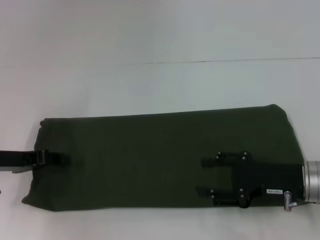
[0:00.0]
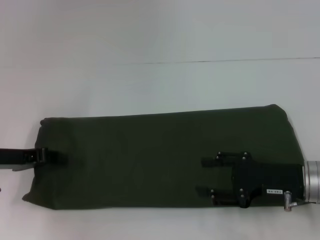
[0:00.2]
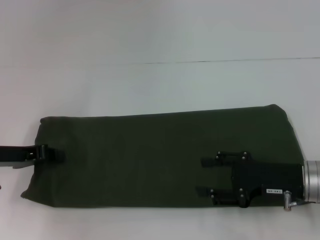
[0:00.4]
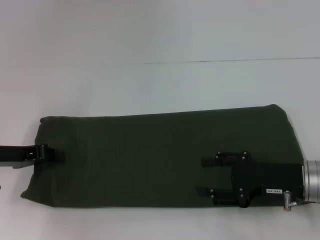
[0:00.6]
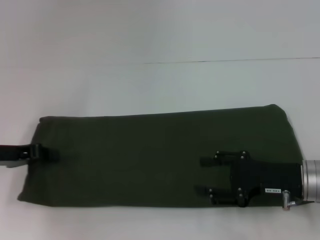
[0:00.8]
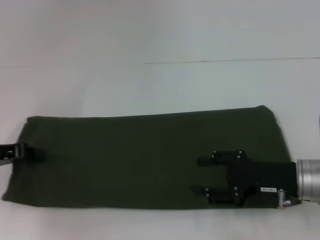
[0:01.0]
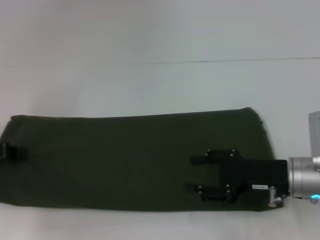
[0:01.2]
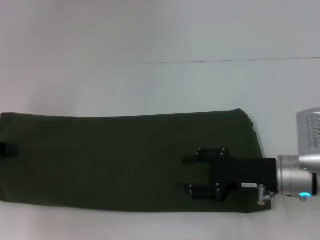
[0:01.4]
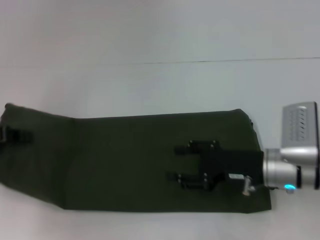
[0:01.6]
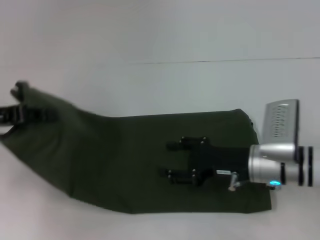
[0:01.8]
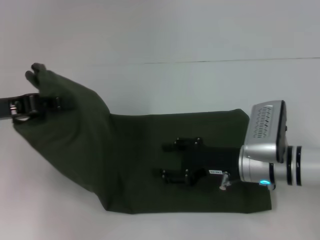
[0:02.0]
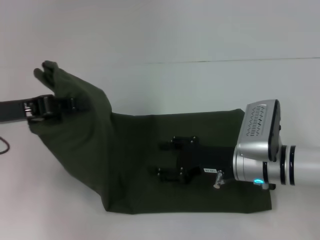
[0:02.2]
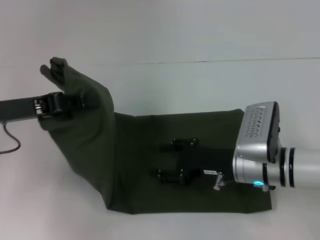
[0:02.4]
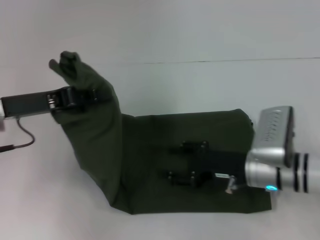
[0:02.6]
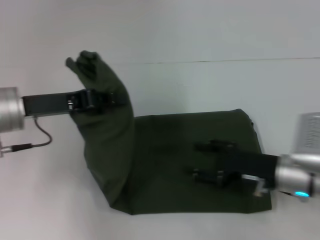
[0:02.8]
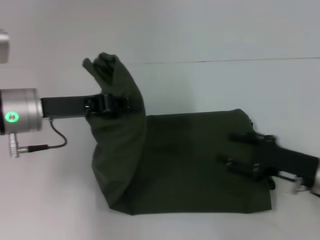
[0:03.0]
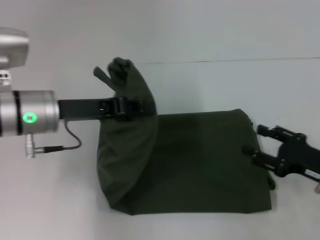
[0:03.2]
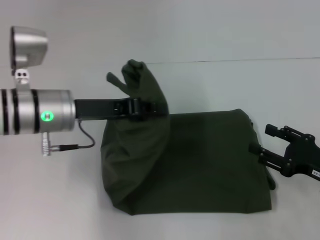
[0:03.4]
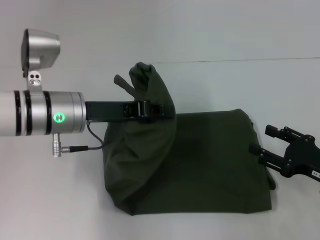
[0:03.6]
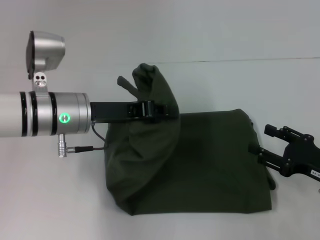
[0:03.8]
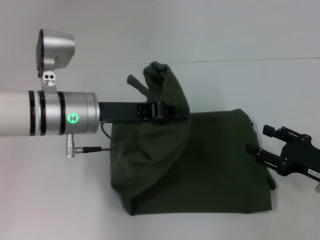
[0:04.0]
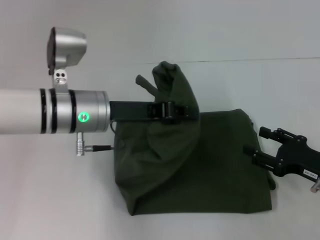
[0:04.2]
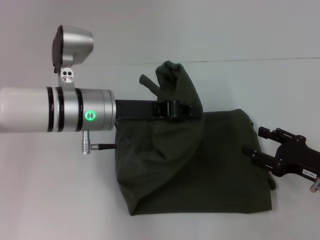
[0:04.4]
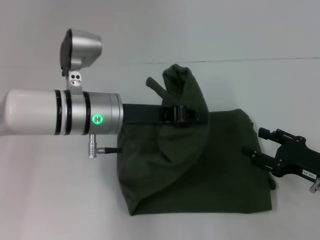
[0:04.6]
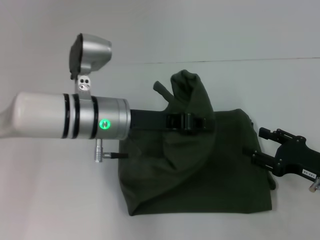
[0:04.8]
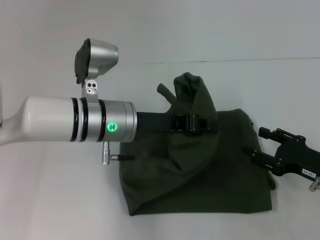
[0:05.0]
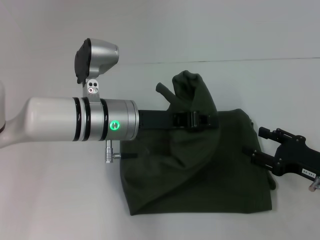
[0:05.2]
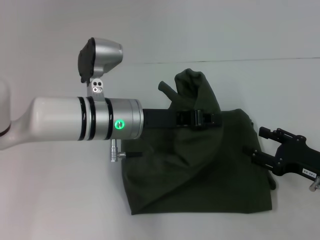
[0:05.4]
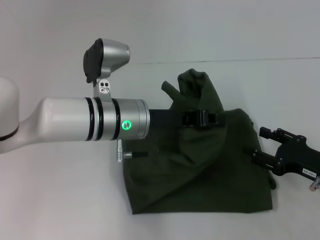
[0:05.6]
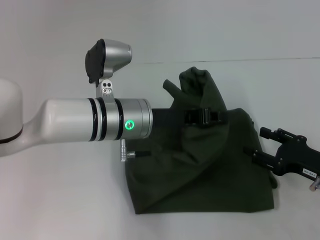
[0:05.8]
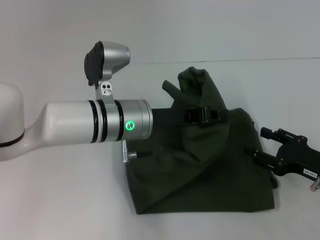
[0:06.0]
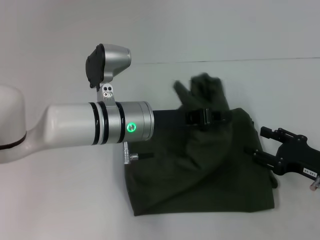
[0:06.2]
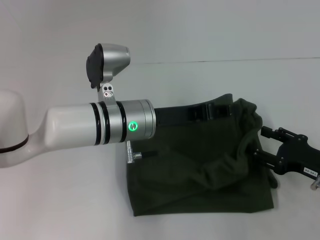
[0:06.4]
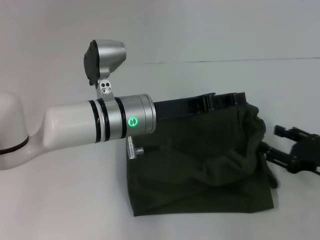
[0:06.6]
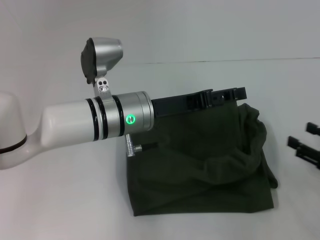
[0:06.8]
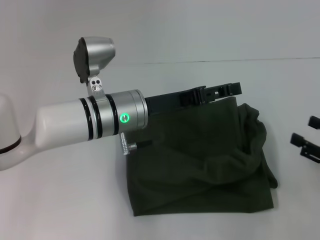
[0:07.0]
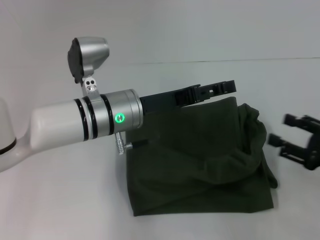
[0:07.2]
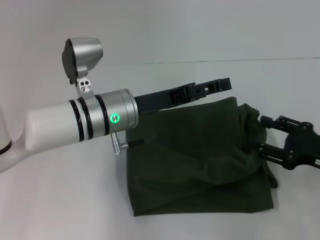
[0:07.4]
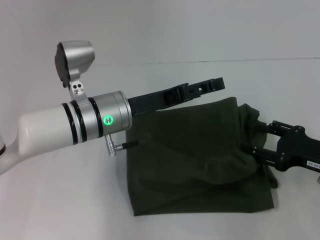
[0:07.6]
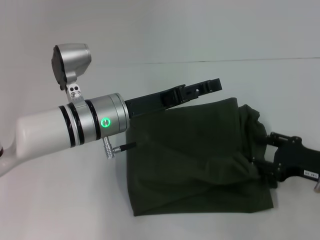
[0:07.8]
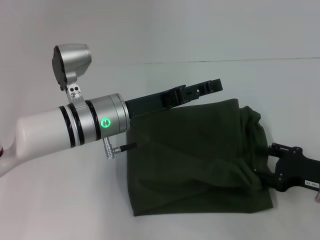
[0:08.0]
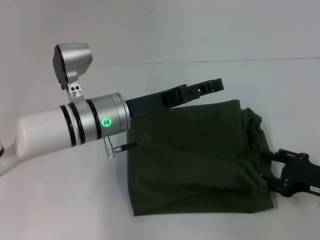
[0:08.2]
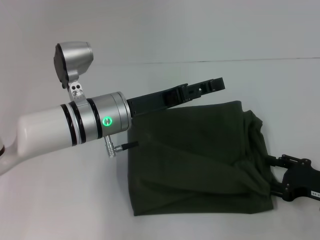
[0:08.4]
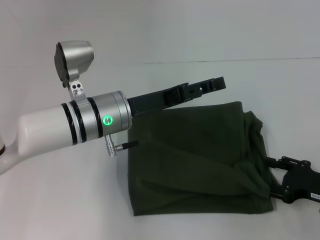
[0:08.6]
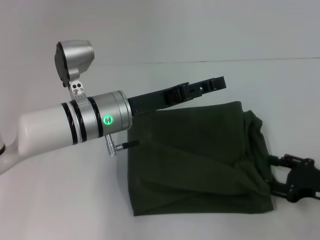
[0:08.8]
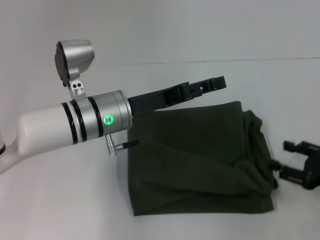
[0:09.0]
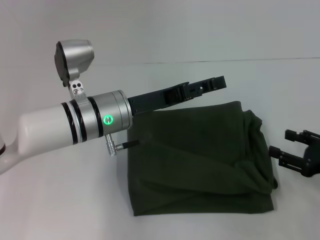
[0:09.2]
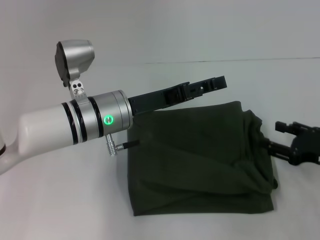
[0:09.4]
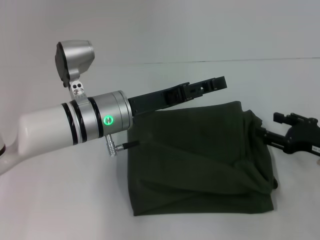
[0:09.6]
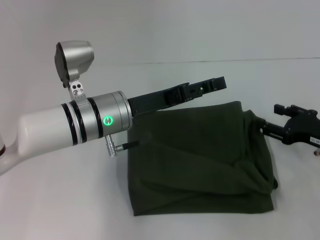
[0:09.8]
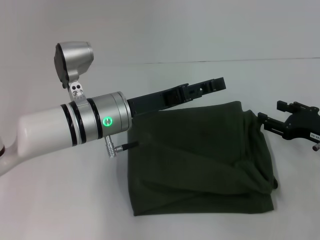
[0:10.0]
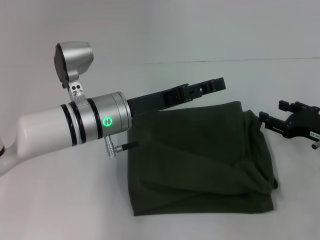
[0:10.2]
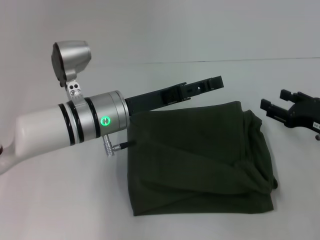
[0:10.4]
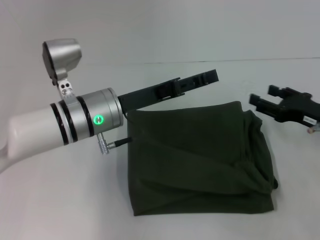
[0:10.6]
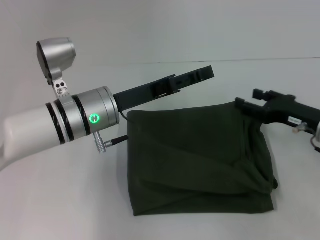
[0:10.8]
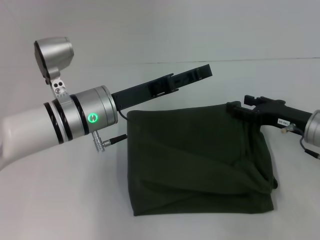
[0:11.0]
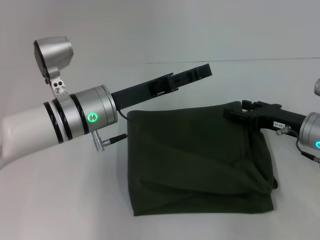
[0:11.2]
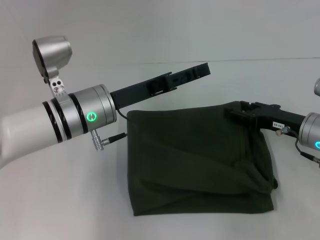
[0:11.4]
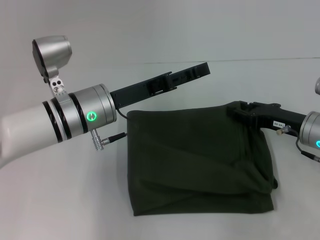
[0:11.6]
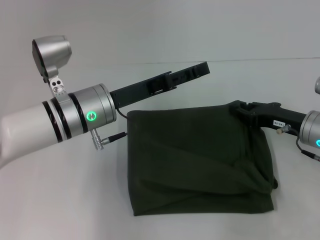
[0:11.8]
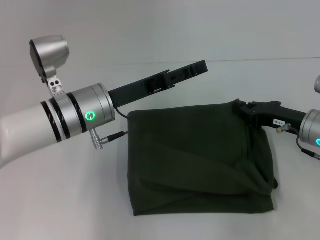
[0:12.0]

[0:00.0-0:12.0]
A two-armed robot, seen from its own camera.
0:00.0 to 0:01.6: The right gripper moves about 5 cm; the left gripper shifts roughly 5 cm upward, and closes up.
0:01.6 to 0:03.0: The left gripper shifts approximately 15 cm to the right; the right gripper is displaced to the right by about 5 cm.
0:03.0 to 0:04.4: The left gripper travels to the right by some 10 cm.
0:04.4 to 0:06.0: The left gripper ends up approximately 5 cm from where it was.
0:06.0 to 0:07.6: The left gripper opens up.
0:07.6 to 0:09.0: The grippers make only small movements.
0:09.0 to 0:10.4: The right gripper moves forward, roughly 10 cm.
0:10.4 to 0:12.0: The right gripper shifts roughly 5 cm to the left, and closes up.

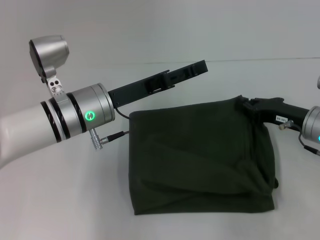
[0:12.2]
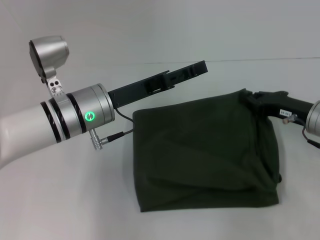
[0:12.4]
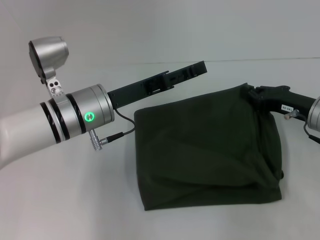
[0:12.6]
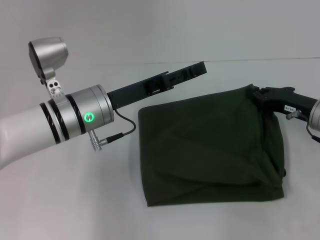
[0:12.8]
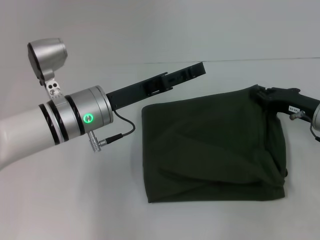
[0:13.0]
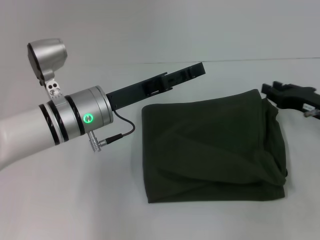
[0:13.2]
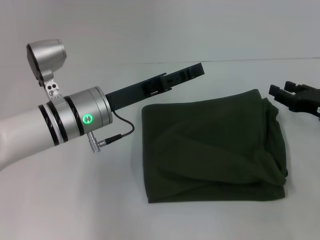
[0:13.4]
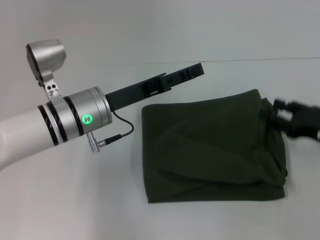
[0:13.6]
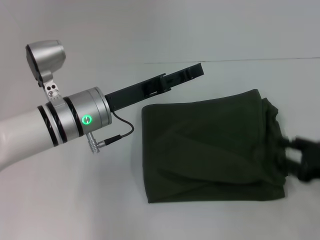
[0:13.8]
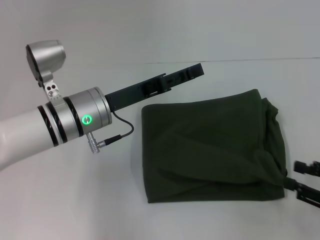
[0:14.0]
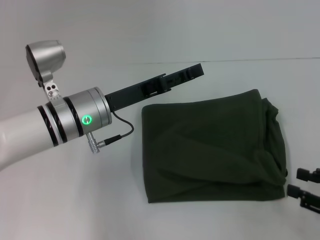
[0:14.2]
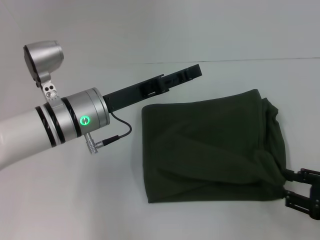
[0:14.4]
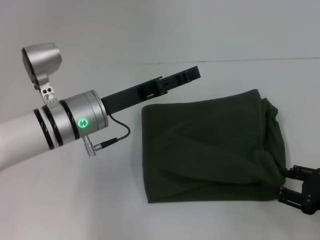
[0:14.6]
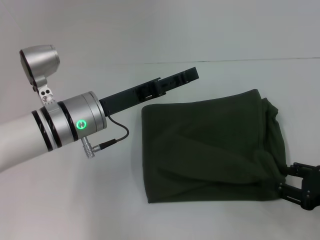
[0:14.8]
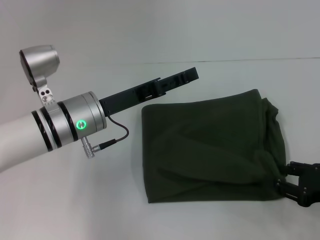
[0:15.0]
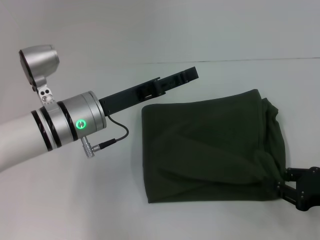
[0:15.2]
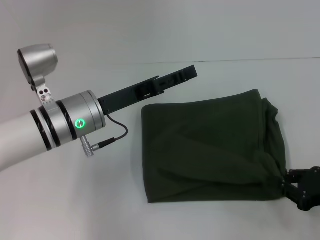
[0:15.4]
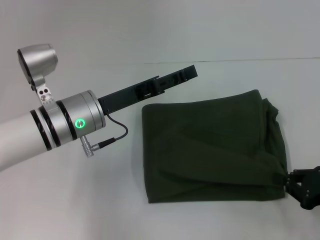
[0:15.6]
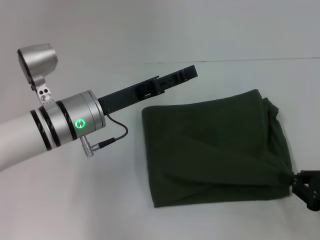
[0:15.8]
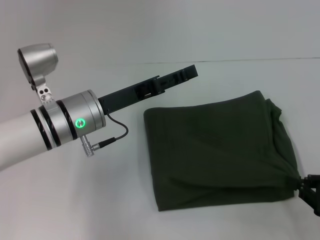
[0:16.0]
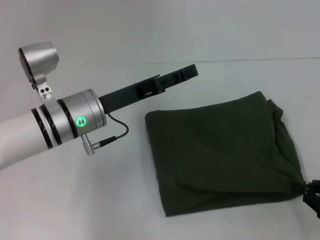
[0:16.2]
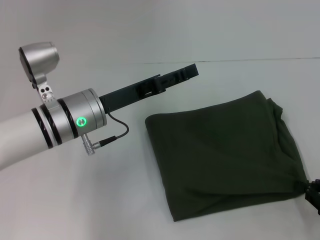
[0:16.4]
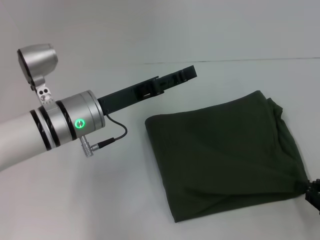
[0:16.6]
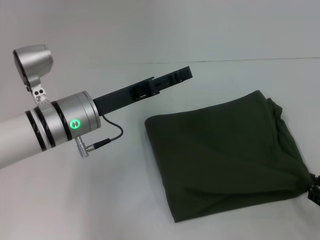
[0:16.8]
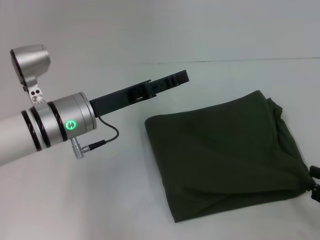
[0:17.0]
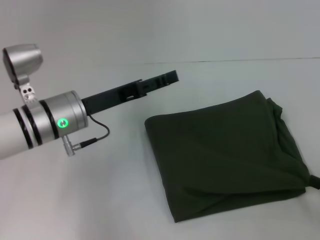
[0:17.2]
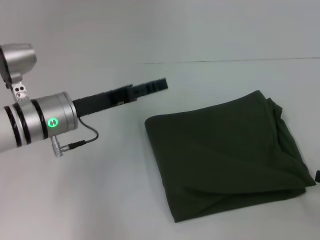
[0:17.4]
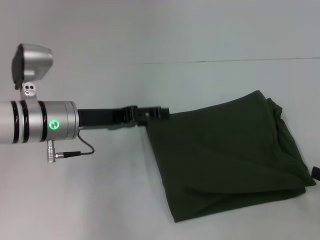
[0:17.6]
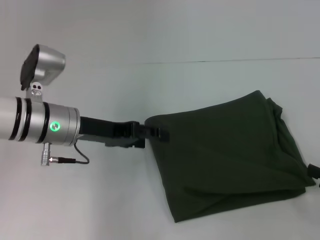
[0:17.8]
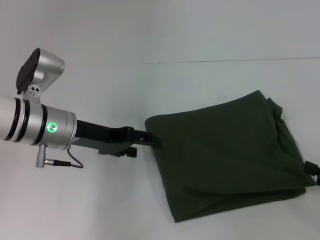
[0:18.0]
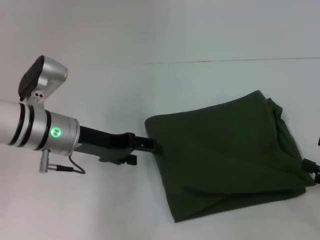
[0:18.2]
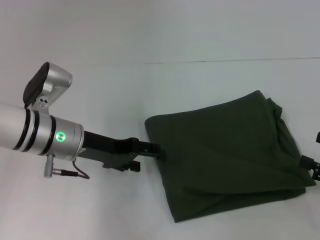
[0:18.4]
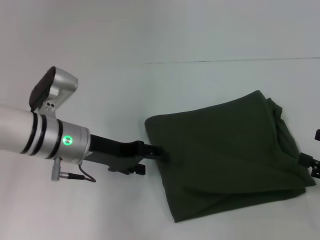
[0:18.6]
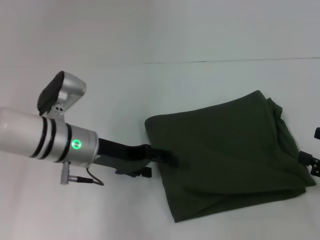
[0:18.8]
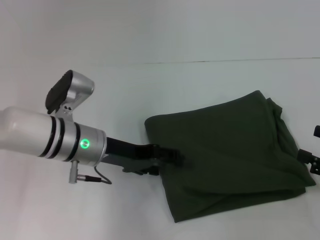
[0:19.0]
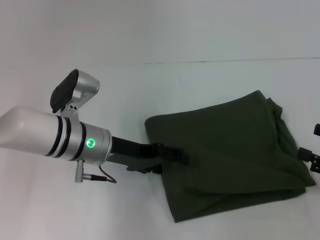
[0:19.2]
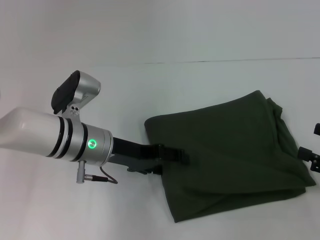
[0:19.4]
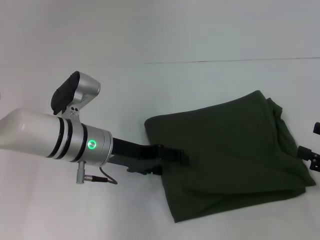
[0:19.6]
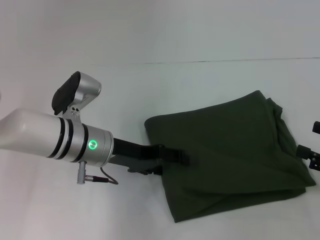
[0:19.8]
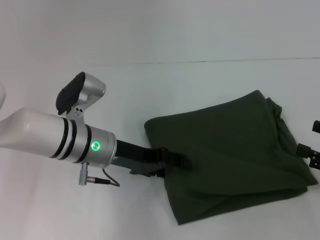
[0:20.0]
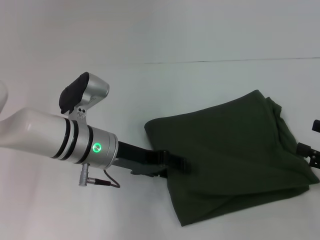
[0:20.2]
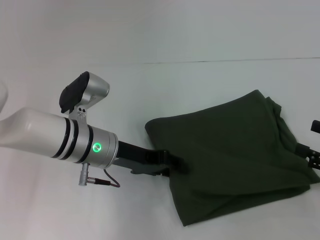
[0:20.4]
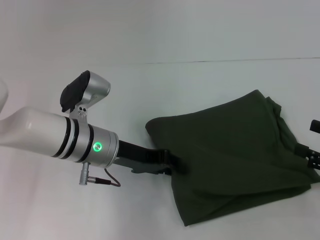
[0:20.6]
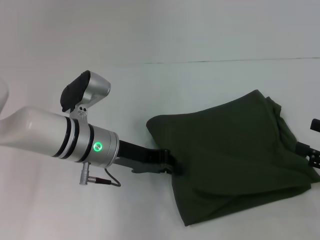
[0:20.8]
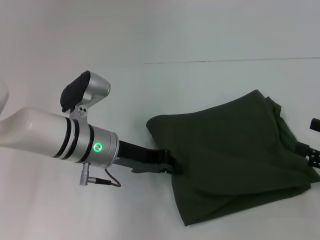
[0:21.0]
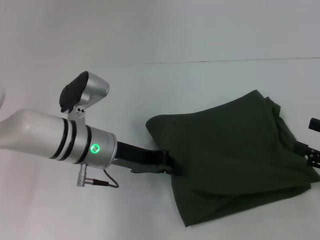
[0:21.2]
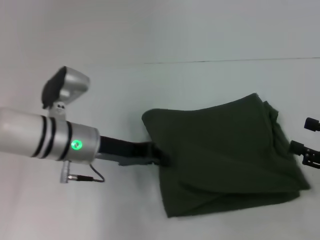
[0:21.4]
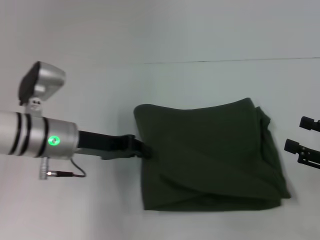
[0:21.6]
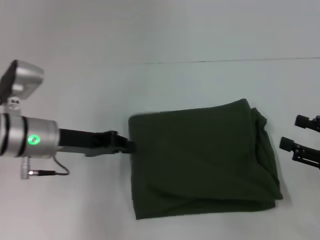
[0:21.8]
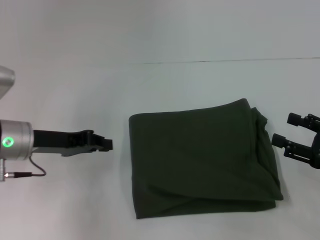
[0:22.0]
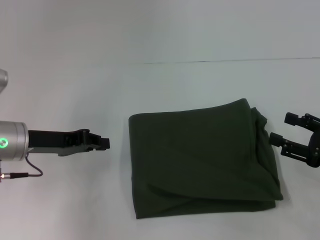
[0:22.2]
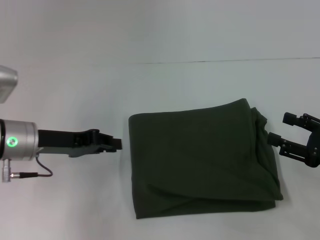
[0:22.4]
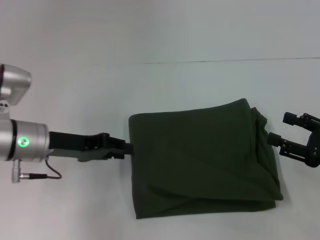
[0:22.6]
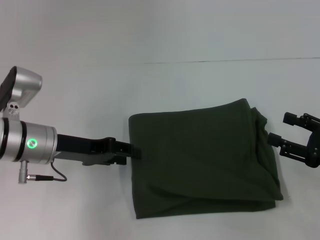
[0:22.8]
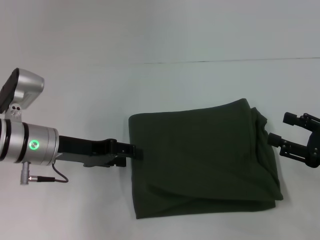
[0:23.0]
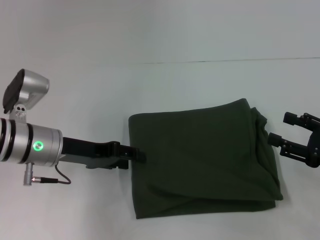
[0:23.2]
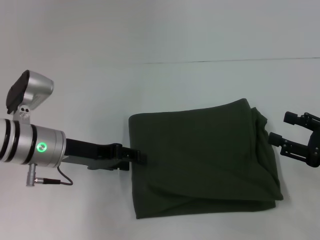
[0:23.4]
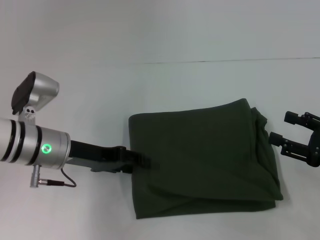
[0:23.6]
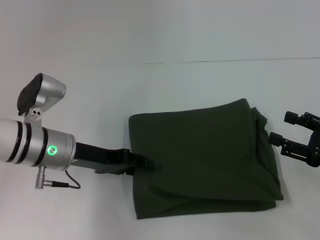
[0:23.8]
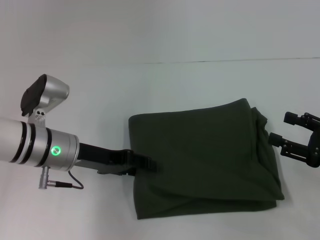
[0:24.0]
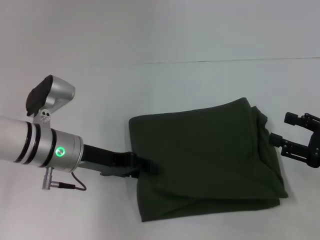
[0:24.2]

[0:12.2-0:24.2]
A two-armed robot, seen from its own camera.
0:12.2 to 0:13.8: The right gripper shifts some 15 cm backward and to the right, and opens its fingers.
0:13.8 to 0:15.2: The grippers make only small movements.
0:15.2 to 0:16.6: The right gripper closes its fingers.
0:16.6 to 0:18.2: The right gripper opens.
0:18.2 to 0:19.8: The left gripper ends up approximately 5 cm from where it was.
0:19.8 to 0:21.2: The left gripper closes up.
0:21.2 to 0:22.6: The left gripper heads to the left, covering about 10 cm.
0:22.6 to 0:24.2: The left gripper opens.
